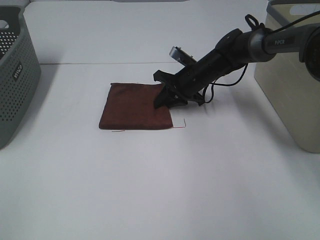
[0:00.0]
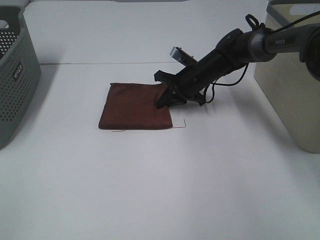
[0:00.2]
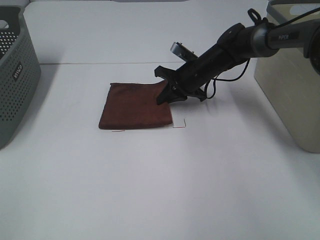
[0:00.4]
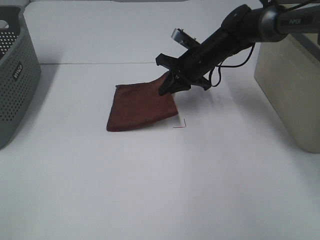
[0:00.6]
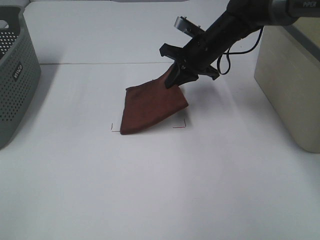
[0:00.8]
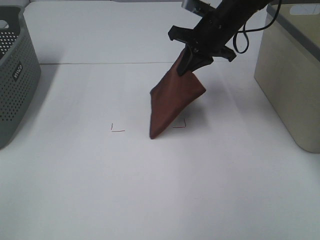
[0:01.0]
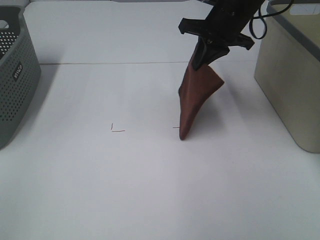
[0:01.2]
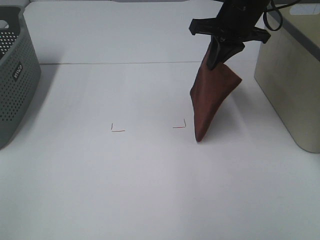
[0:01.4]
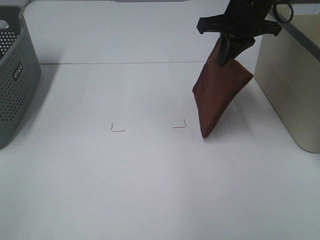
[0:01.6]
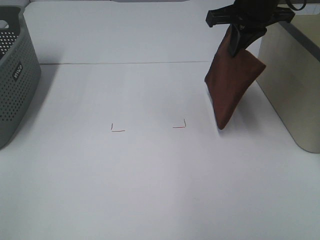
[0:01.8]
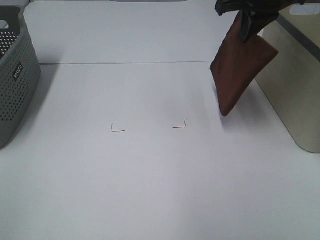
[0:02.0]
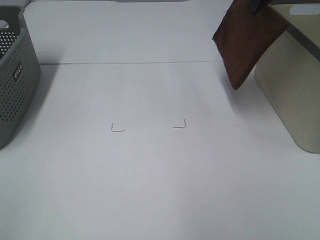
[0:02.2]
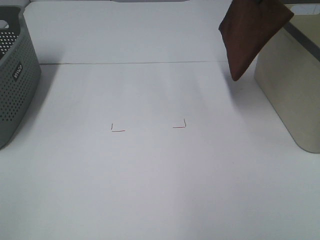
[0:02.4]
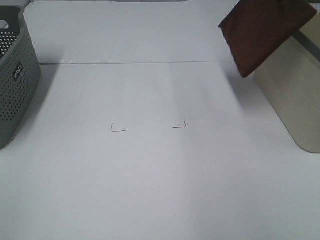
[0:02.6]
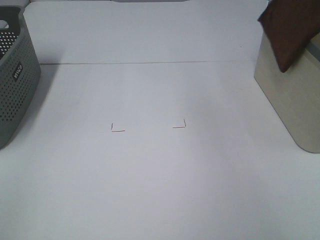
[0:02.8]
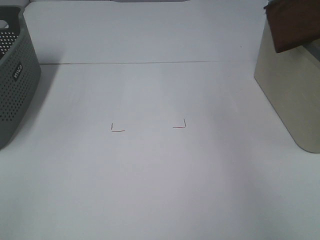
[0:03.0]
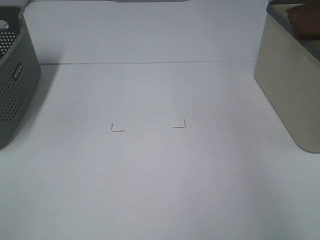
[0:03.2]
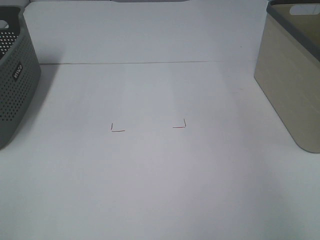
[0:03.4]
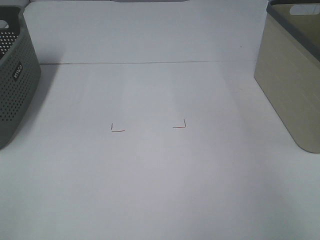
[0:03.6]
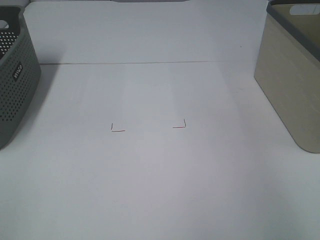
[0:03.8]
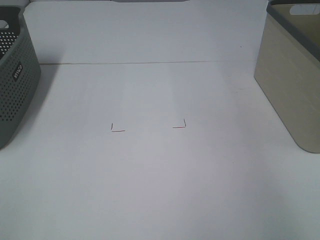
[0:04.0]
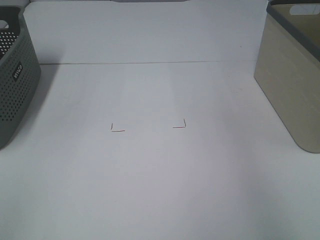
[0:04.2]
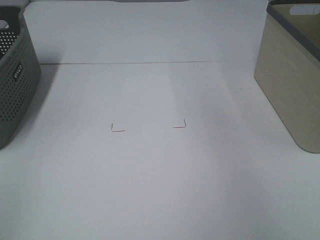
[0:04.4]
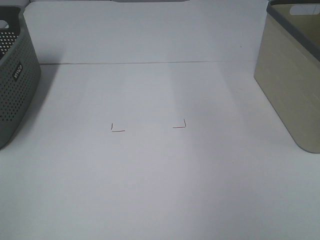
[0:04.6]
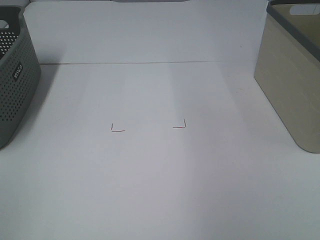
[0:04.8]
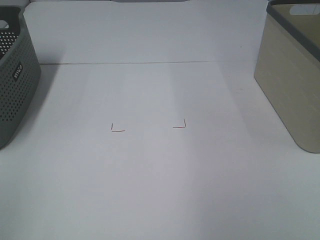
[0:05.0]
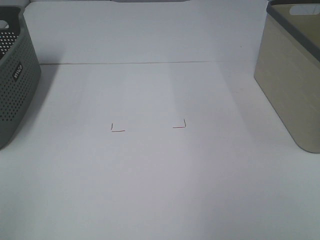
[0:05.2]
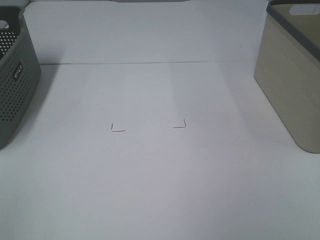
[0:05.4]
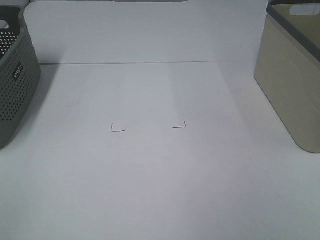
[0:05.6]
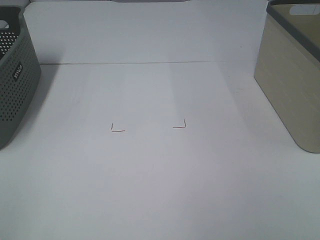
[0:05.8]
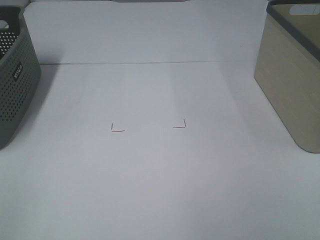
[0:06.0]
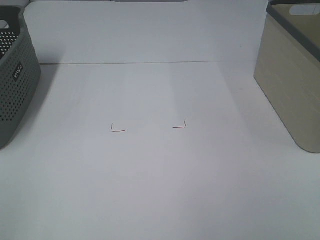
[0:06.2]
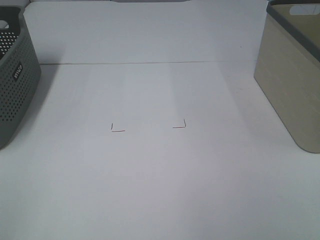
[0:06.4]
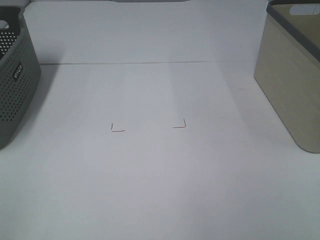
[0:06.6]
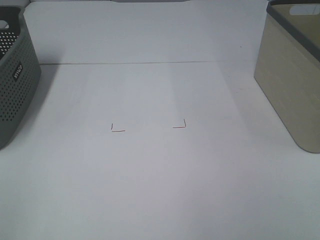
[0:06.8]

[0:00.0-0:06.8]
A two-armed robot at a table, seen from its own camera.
Step, 0:00.4 to 0:03.8: Right hand: place the brown towel in right basket.
0:00.0 to 0:01.4: The right gripper is displaced upward by roughly 20 cm.
0:01.4 to 0:02.8: The right gripper heads to the right and upward, covering roughly 20 cm.
0:02.8 to 0:04.0: The right gripper heads to the right, covering about 10 cm, and opens up.

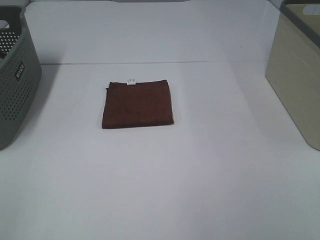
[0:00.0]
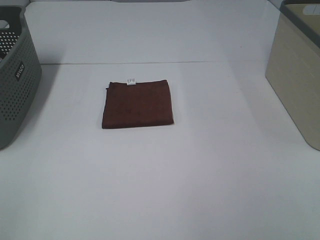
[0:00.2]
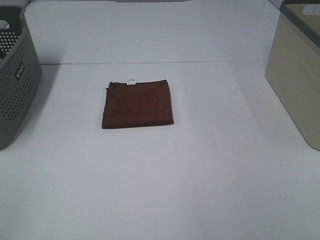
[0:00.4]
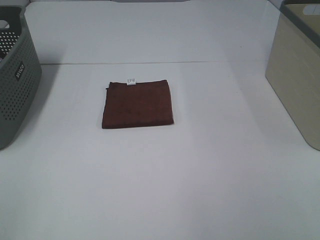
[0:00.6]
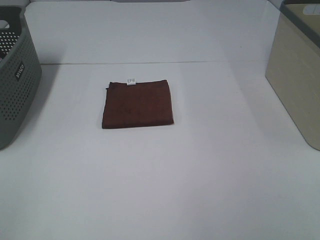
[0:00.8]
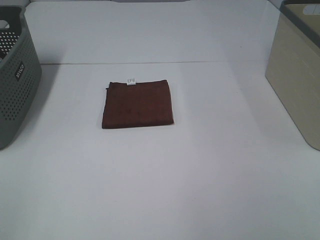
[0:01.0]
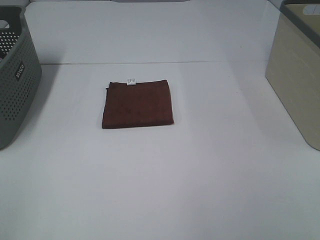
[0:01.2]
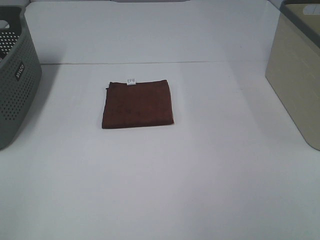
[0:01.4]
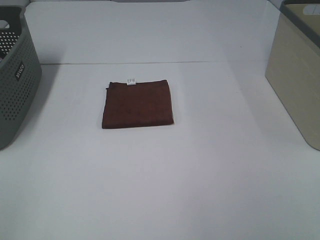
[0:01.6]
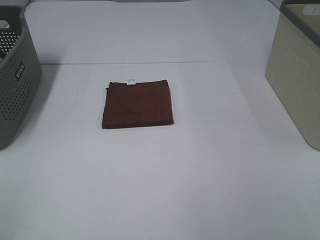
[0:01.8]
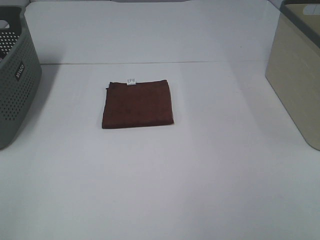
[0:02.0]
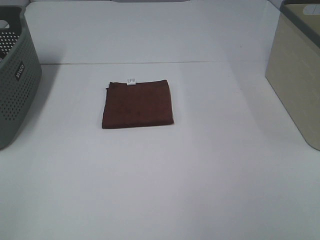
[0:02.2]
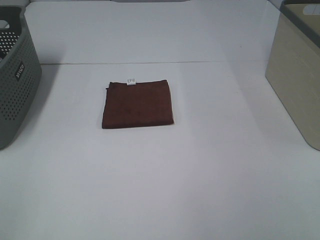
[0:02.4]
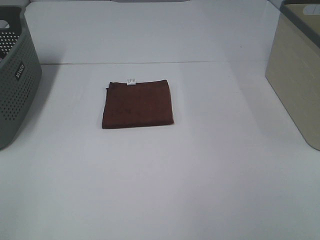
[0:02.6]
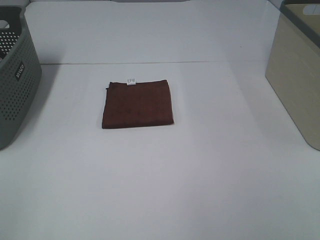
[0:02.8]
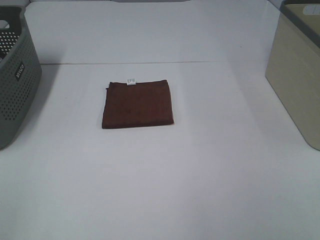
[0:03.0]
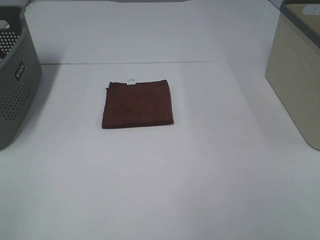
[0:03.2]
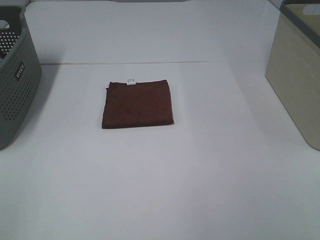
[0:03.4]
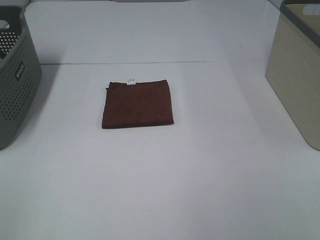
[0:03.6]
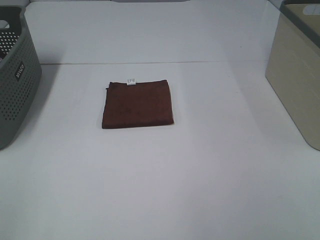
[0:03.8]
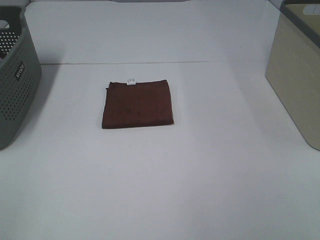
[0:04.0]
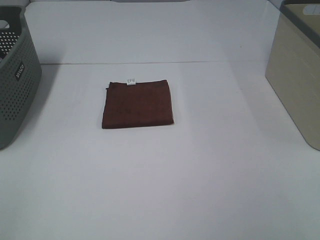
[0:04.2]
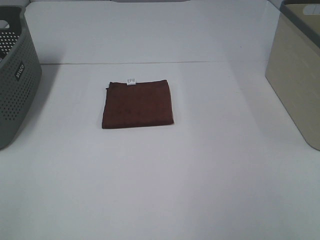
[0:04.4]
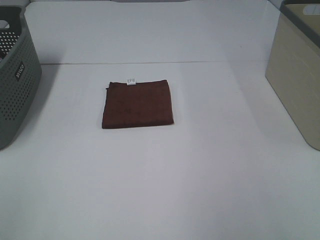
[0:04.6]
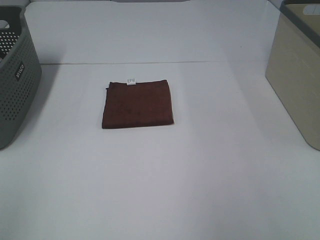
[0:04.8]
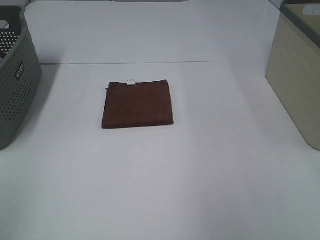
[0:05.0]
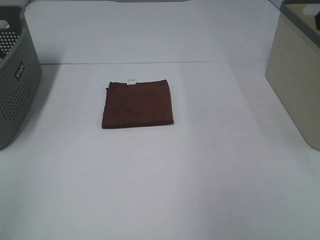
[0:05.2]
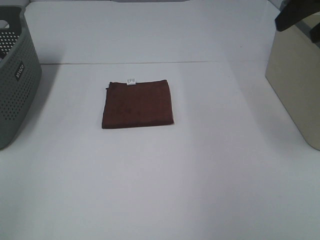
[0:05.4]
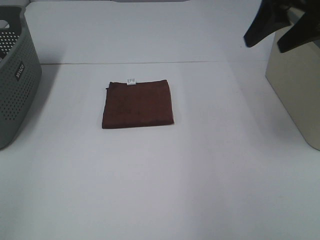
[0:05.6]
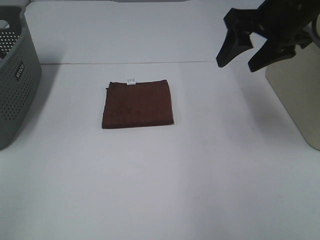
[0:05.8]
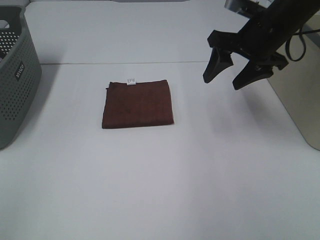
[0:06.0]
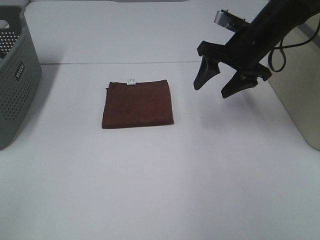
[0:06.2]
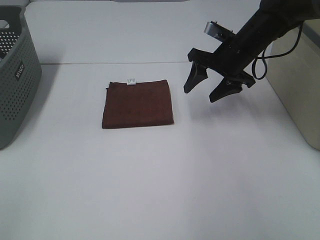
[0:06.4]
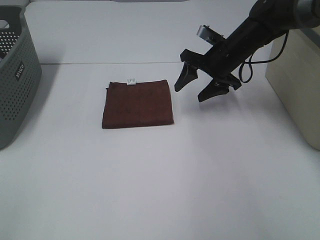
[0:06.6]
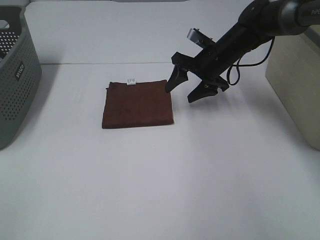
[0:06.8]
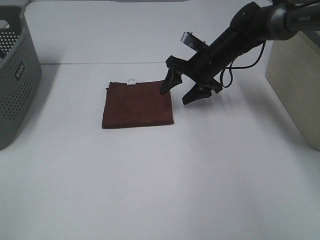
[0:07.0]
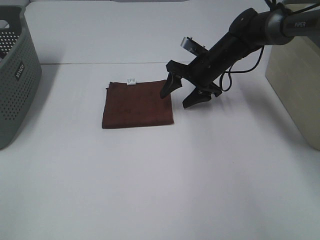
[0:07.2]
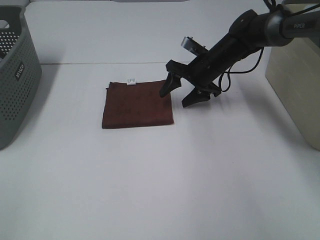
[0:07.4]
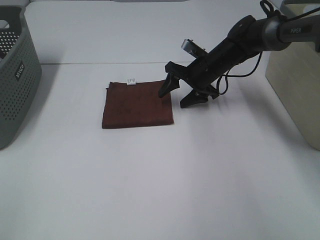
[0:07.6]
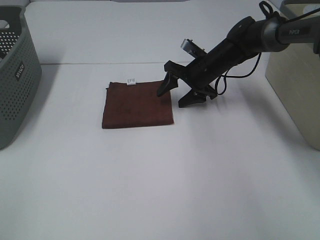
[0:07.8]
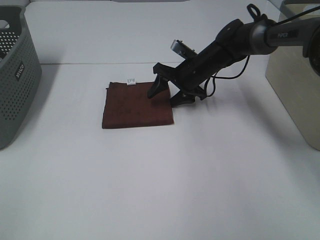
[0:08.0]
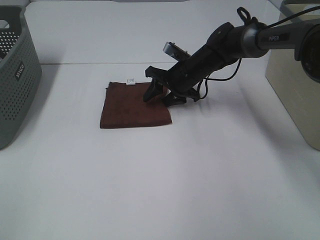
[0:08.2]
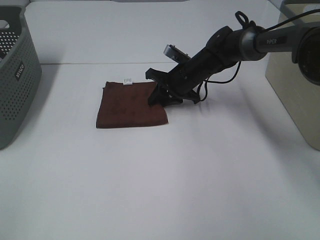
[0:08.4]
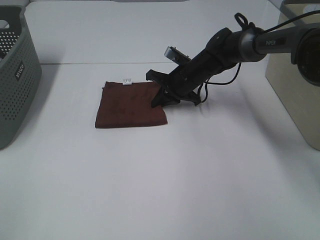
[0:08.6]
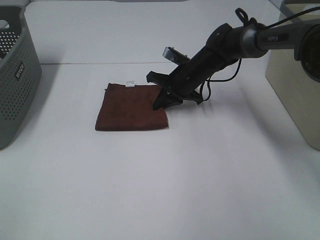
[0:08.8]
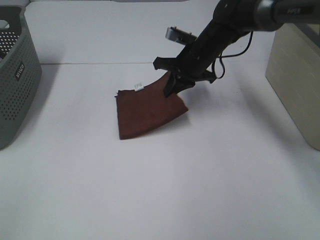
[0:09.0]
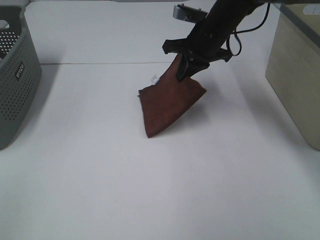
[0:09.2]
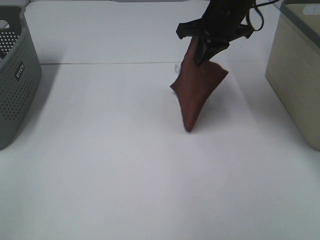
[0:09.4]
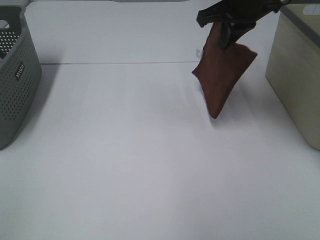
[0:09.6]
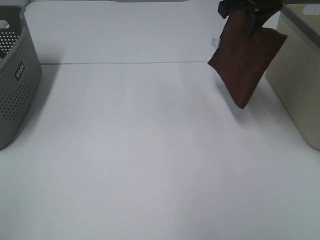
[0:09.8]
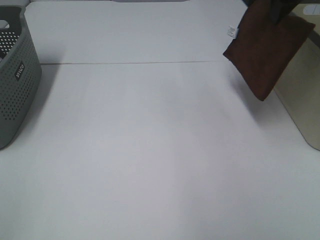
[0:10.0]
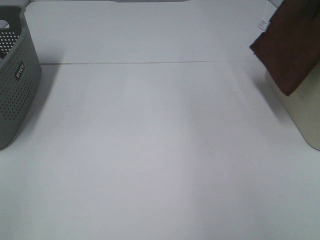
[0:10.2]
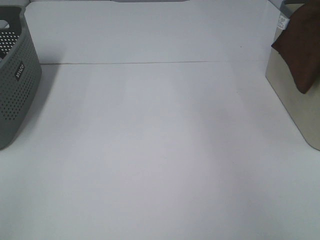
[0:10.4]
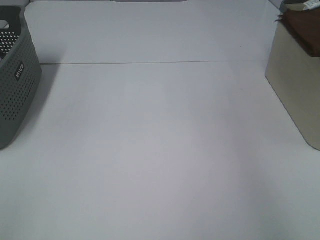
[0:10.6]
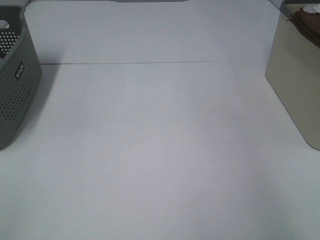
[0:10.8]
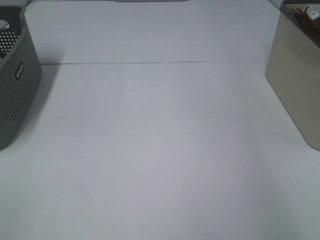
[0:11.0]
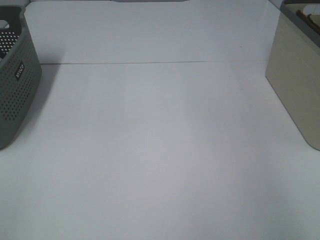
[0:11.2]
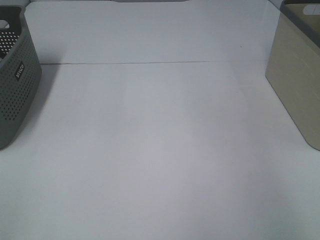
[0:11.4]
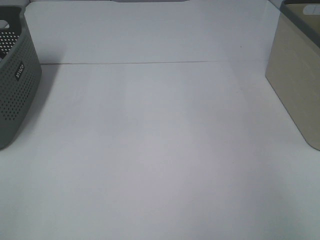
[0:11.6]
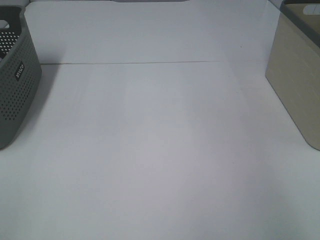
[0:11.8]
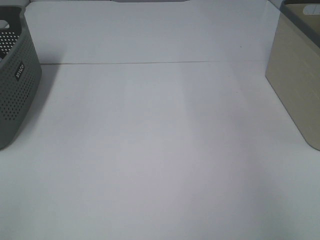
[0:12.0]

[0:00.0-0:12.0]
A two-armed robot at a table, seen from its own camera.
Step, 0:00.0 to 0:08.6: Right hand: grab the folded brown towel.
Step, 0:08.8 to 0:11.8: Right hand: place the brown towel in right basket.
0:00.0 to 0:03.0: Neither gripper changes place.
0:04.4 to 0:06.0: The right gripper heads forward, covering roughly 35 cm.
0:06.0 to 0:07.6: The right gripper shifts some 15 cm downward, forward and to the left.
0:07.6 to 0:09.0: The right gripper changes place by about 5 cm, and closes up.
0:09.0 to 0:10.4: The right gripper goes approximately 30 cm to the right and upward.
0:10.4 to 0:12.0: The right gripper is displaced to the right by approximately 5 cm, and opens.

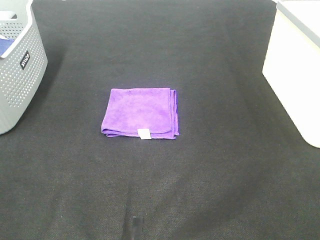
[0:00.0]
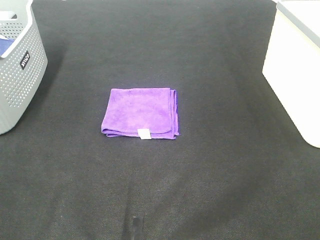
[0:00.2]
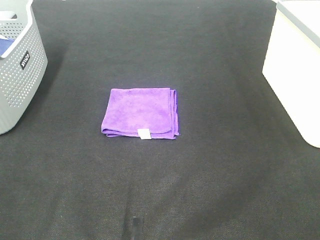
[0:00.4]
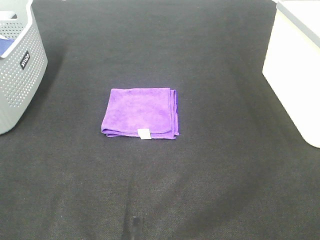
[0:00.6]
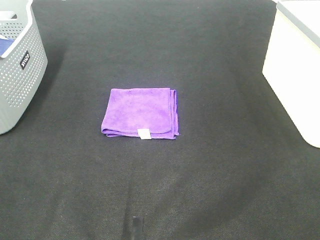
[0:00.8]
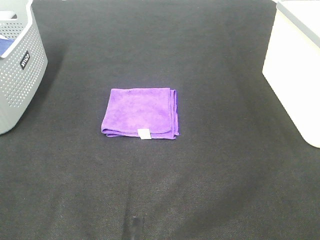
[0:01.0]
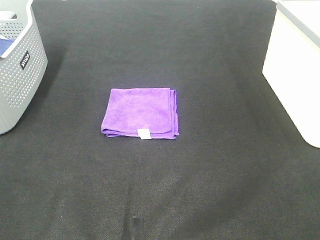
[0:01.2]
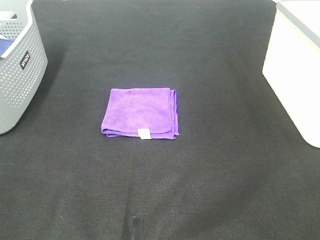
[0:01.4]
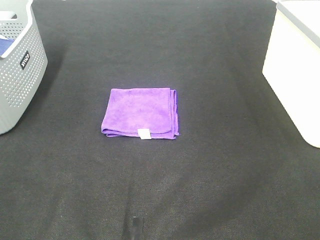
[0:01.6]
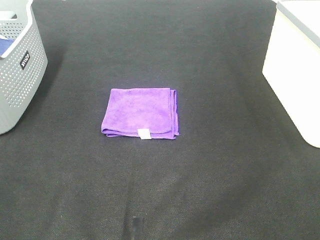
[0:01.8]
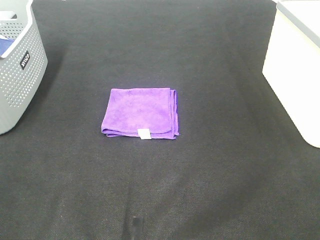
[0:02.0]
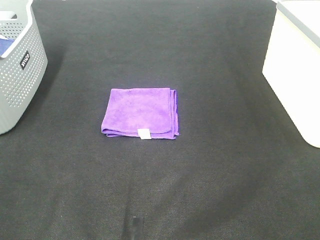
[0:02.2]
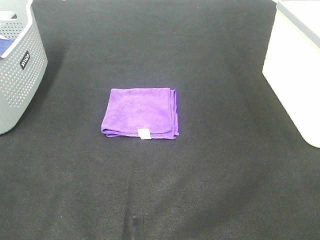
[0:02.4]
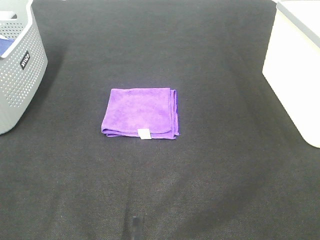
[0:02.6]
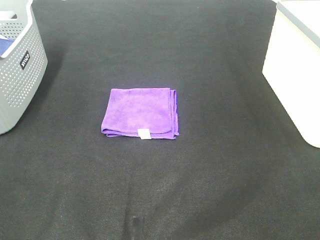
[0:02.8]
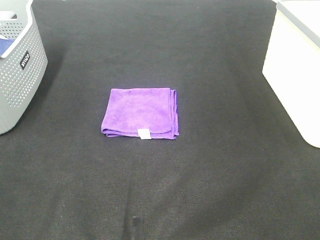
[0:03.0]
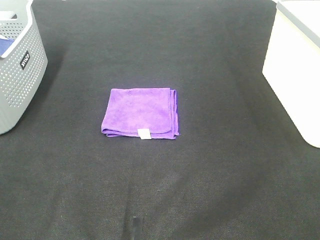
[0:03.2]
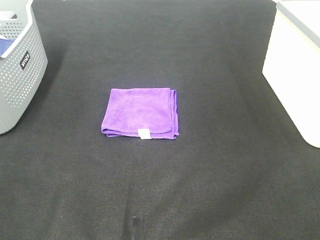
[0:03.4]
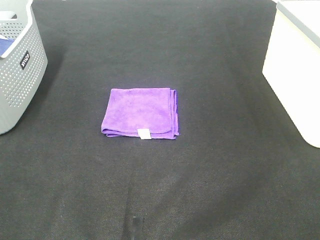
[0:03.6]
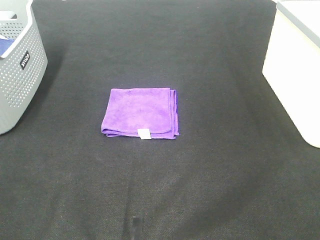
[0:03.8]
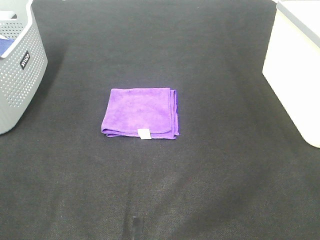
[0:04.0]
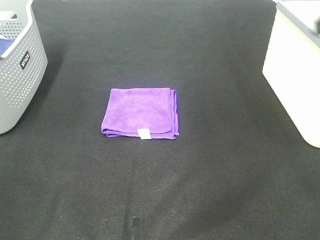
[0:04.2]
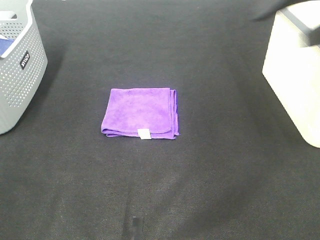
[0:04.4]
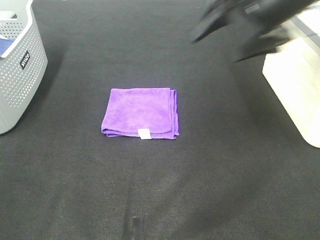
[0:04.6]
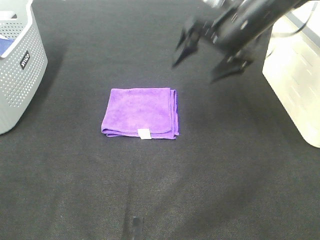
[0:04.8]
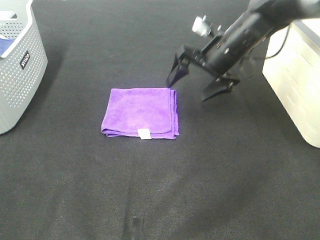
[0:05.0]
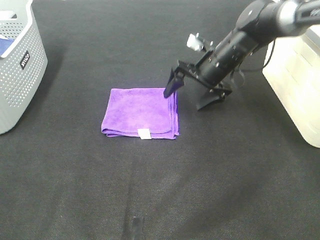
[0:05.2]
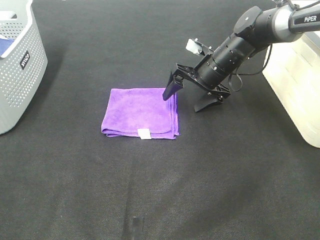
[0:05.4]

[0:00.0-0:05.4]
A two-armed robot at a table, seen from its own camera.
0:00.0 to 0:01.4: Neither gripper changes place.
0:04.0 to 0:05.4: The right gripper shifts roughly 40 cm forward, downward and to the left.
